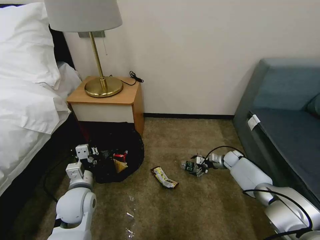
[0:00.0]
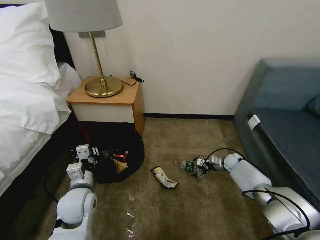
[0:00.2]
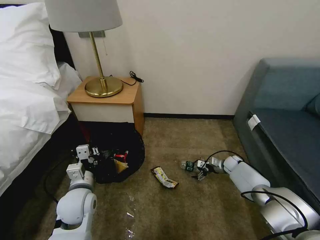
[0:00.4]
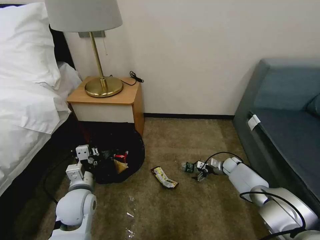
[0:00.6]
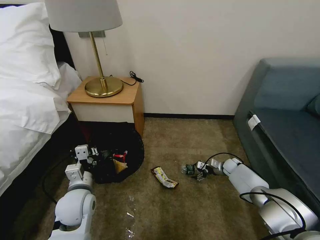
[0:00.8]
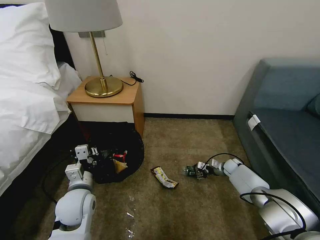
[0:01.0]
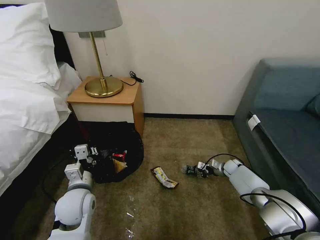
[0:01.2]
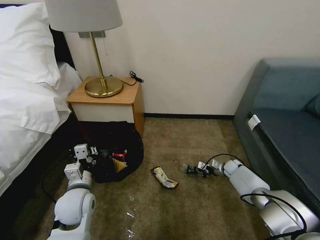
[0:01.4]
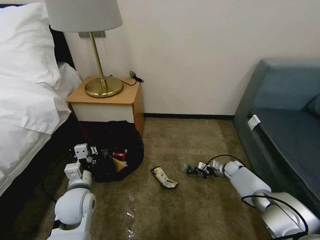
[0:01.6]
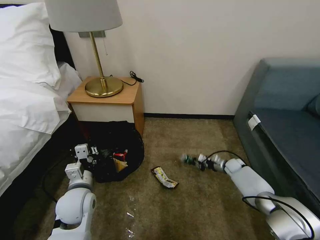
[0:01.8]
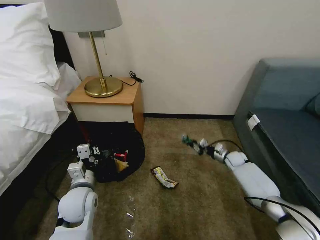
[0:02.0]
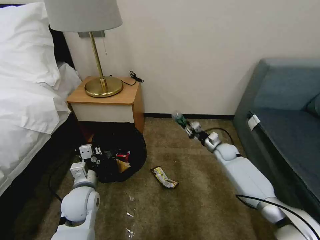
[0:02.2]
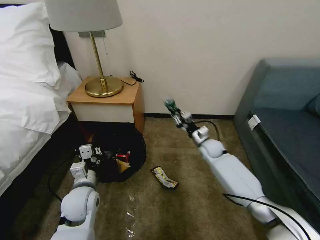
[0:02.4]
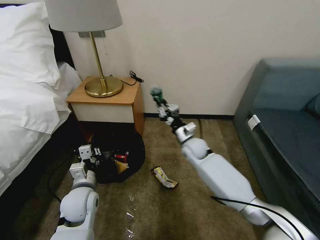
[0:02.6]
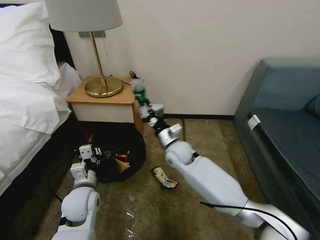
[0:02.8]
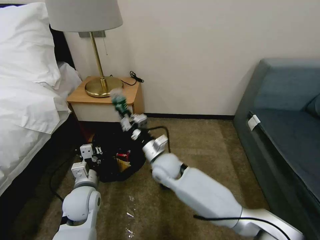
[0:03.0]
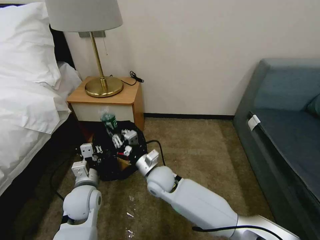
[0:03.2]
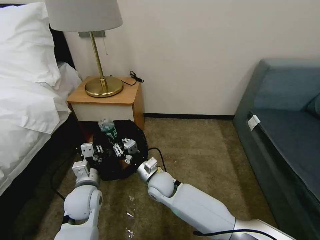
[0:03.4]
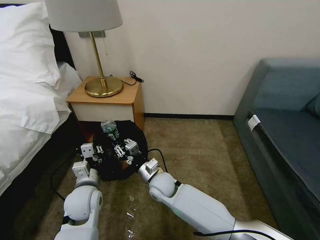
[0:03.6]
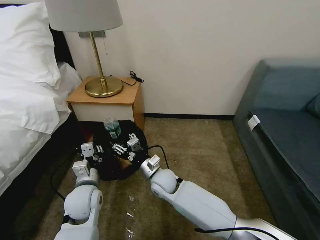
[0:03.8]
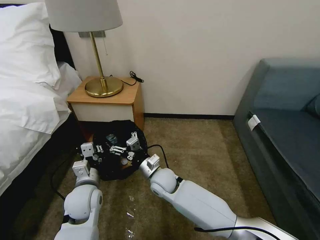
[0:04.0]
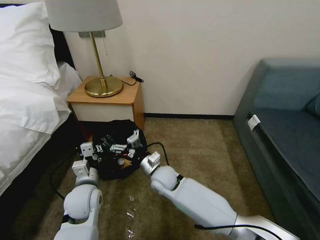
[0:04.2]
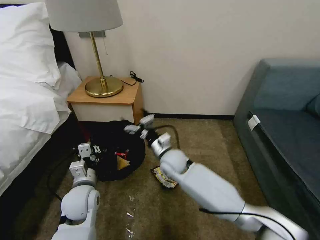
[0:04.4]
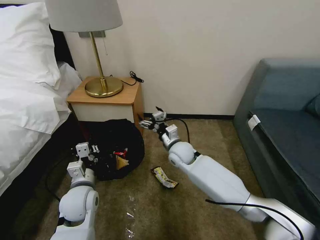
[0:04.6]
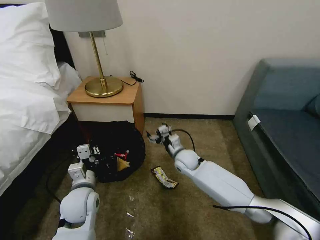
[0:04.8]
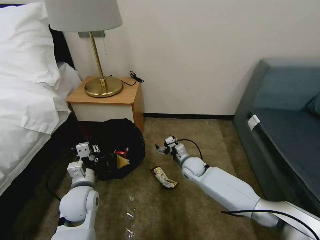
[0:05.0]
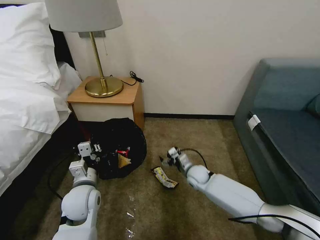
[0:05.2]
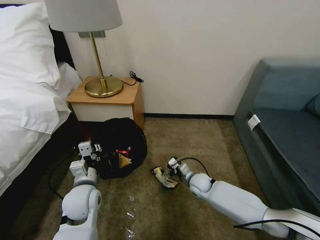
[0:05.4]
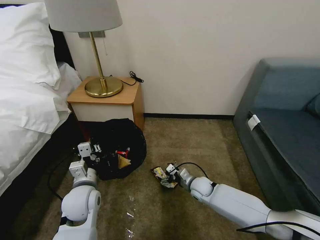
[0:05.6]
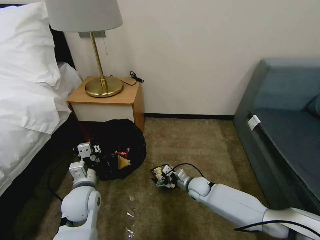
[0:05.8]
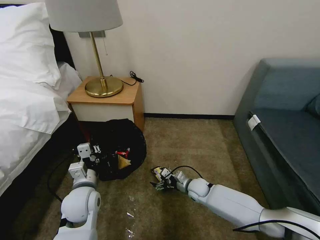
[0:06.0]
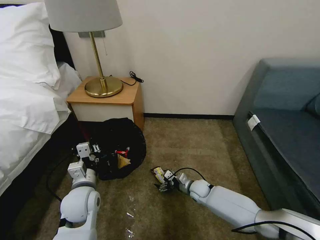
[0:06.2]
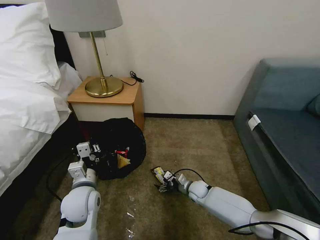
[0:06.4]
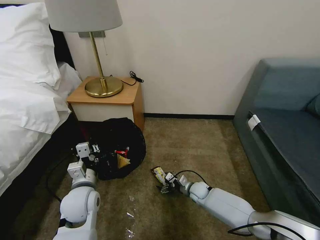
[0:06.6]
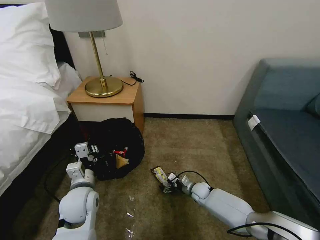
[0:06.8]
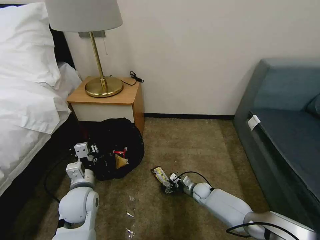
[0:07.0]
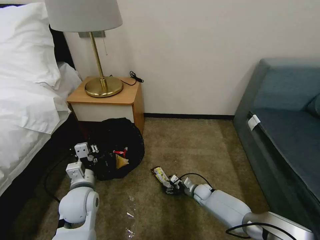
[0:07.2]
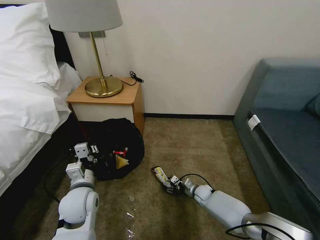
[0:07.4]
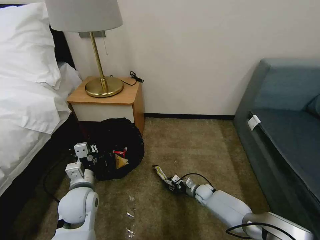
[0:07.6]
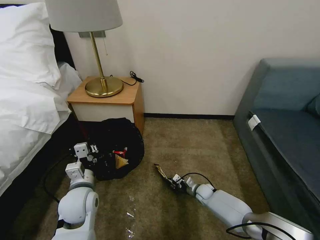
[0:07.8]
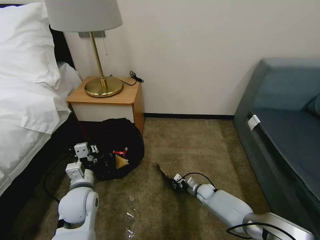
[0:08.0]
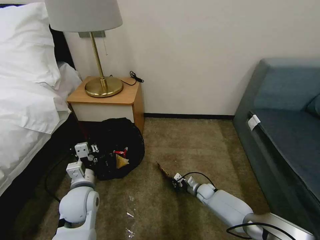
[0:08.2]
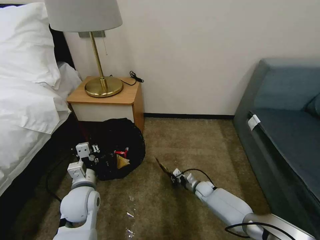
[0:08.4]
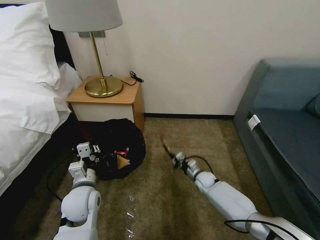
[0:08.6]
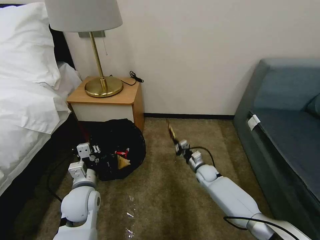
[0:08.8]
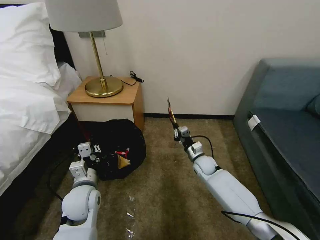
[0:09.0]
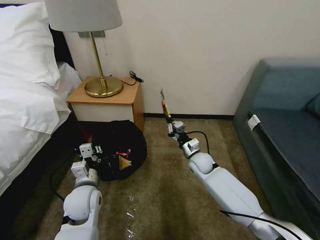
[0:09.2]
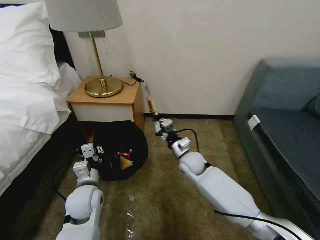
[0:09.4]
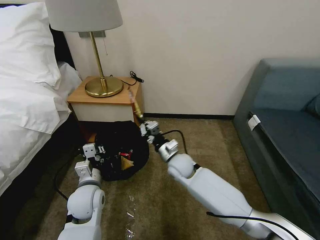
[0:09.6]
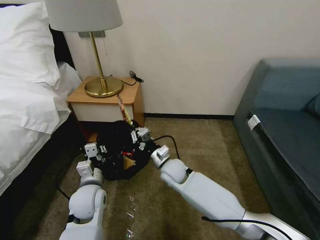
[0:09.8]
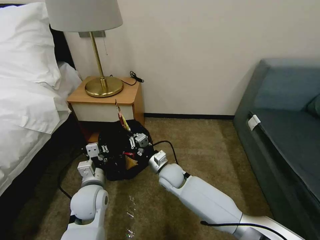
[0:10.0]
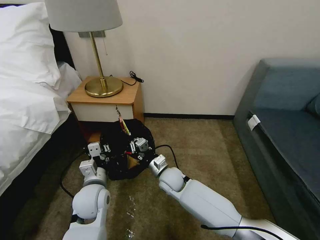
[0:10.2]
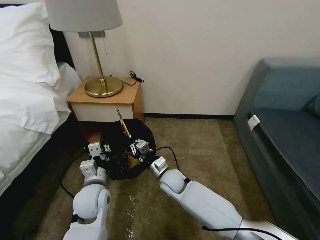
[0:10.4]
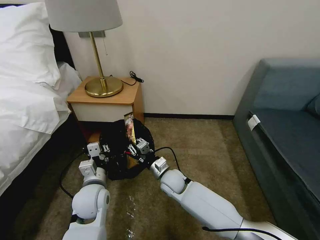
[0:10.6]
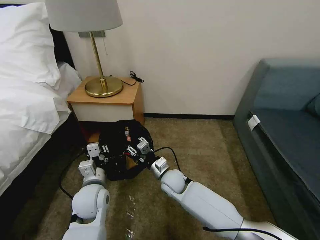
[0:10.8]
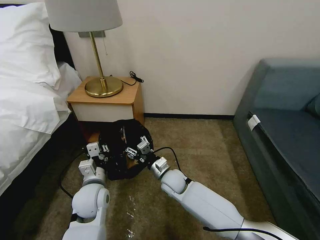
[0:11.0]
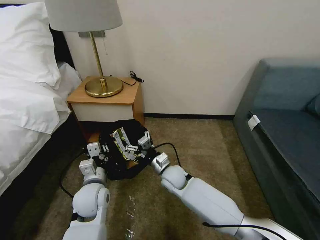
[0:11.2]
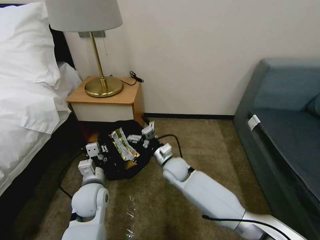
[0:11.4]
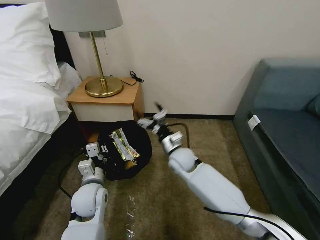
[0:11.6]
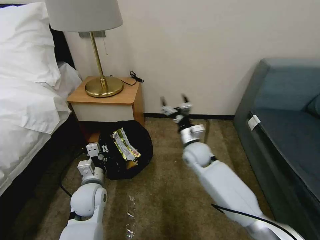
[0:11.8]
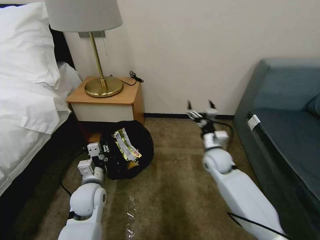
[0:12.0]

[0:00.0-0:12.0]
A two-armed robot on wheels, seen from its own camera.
Task of the whole recording: Pick up the trash bin, then pick up the garbage on the floor and place it into the trash bin.
0:00.0 to 0:01.6: The right gripper changes place by some 5 cm, and closes.
0:01.6 to 0:03.0: The right gripper is displaced to the left and upward by roughly 40 cm.
0:03.0 to 0:04.4: The right gripper goes backward and returns, roughly 10 cm each way, and opens up.
0:04.4 to 0:06.0: The right gripper goes about 25 cm downward and to the right.
0:06.0 to 0:07.6: The right gripper is displaced downward and to the right by about 10 cm, and closes.
0:07.6 to 0:09.0: The right gripper heads upward, covering some 15 cm, and closes up.
0:09.0 to 0:10.4: The right gripper travels to the left and backward by about 15 cm.
0:10.4 to 0:12.0: The right gripper is displaced to the right and upward by roughly 20 cm, and opens up.

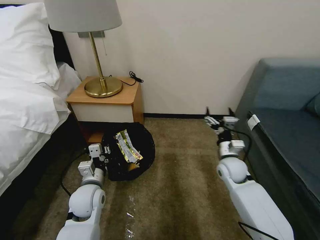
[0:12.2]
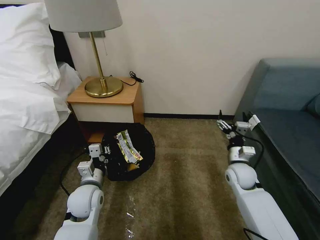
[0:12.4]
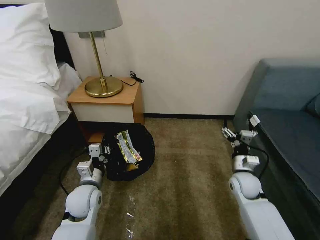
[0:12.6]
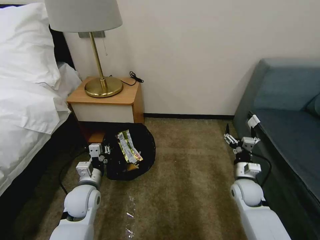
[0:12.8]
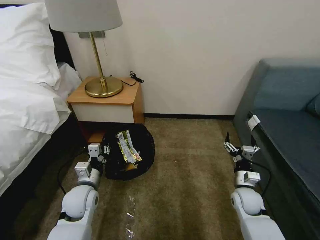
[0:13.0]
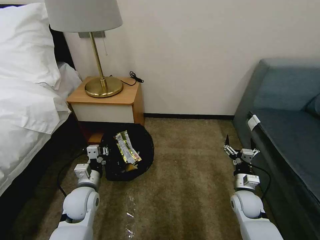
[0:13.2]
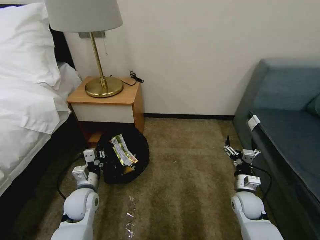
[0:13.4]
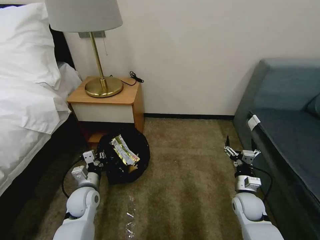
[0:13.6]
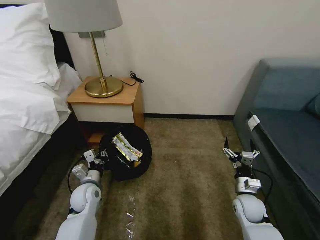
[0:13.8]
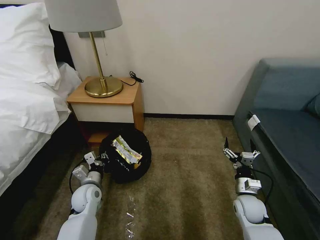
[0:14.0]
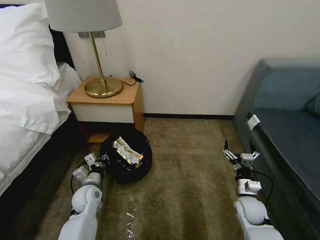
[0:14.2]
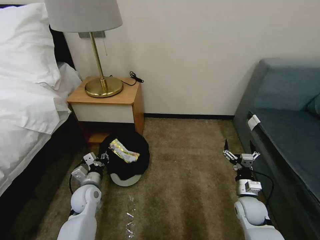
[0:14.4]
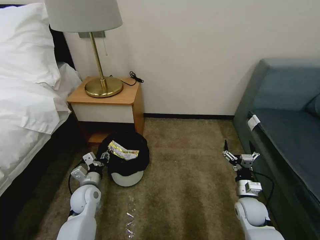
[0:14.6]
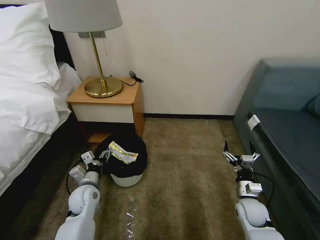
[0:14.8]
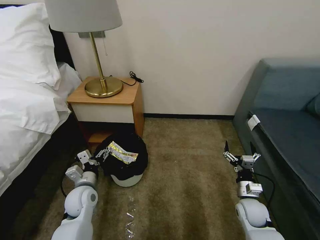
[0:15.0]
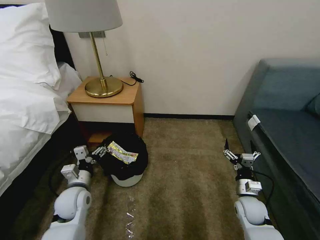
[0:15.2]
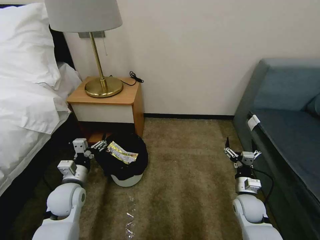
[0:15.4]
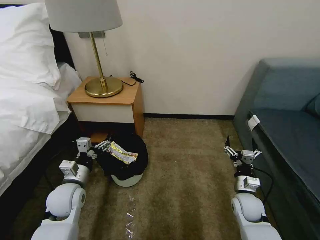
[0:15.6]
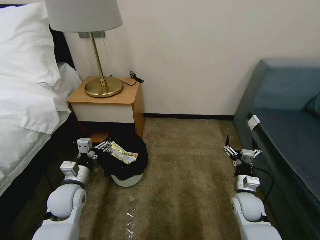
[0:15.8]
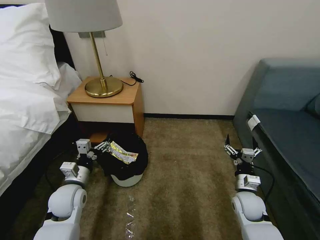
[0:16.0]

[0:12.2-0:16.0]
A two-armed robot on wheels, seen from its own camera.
Task of the whole recording: Pick up the trash bin, then pick up the garbage on the floor and place it into the trash bin.
0:12.2 to 0:13.4: The right gripper shifts about 15 cm backward and downward.
0:13.4 to 0:14.8: The left gripper opens.
0:14.8 to 0:16.0: The left gripper goes some 5 cm upward.

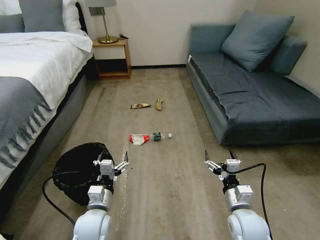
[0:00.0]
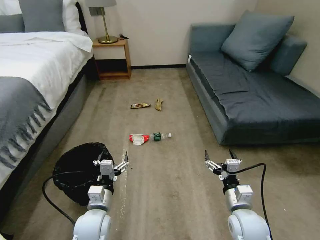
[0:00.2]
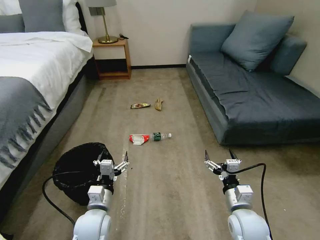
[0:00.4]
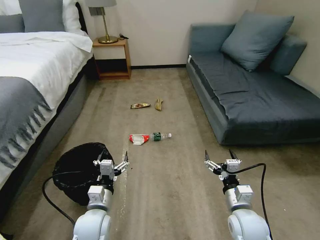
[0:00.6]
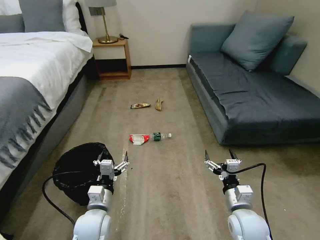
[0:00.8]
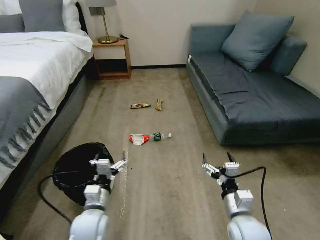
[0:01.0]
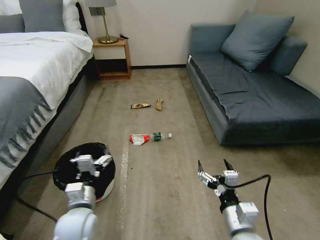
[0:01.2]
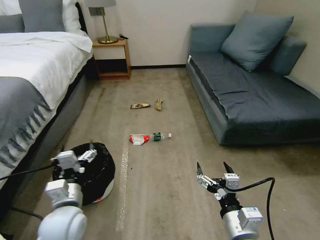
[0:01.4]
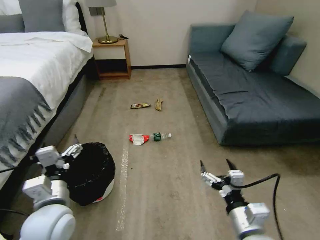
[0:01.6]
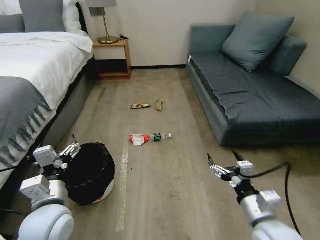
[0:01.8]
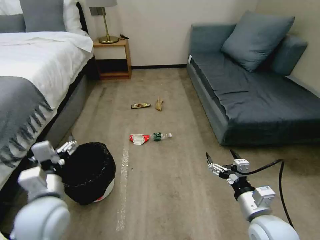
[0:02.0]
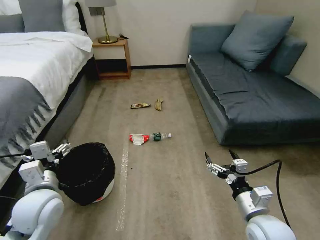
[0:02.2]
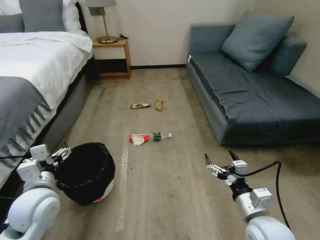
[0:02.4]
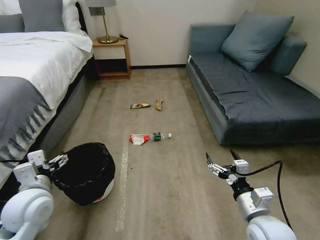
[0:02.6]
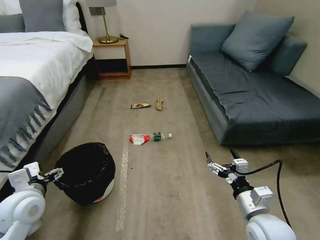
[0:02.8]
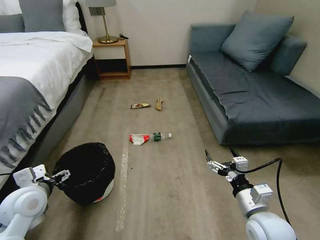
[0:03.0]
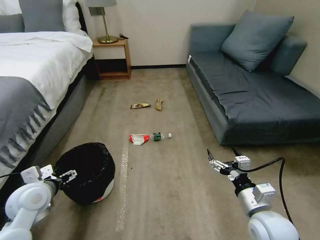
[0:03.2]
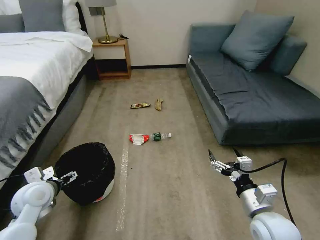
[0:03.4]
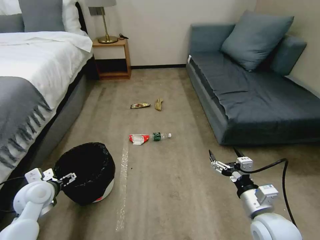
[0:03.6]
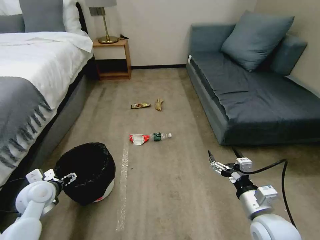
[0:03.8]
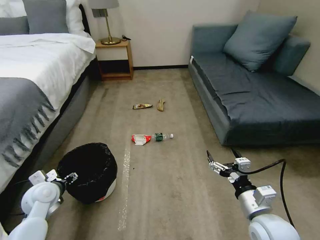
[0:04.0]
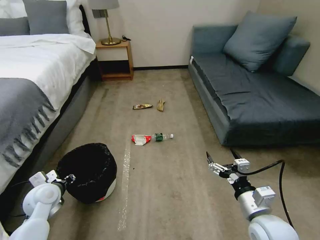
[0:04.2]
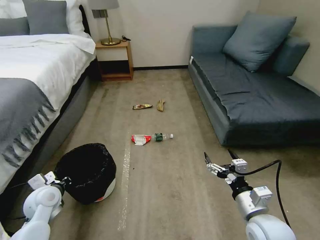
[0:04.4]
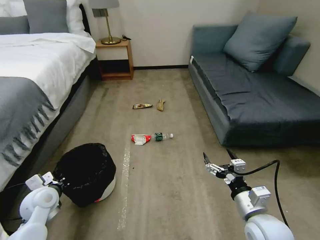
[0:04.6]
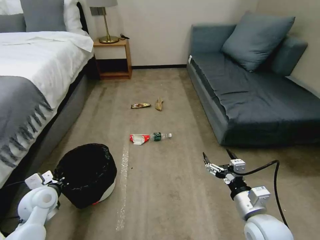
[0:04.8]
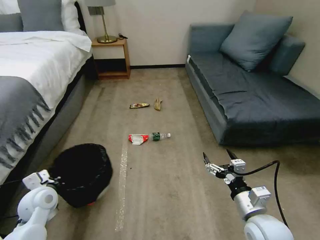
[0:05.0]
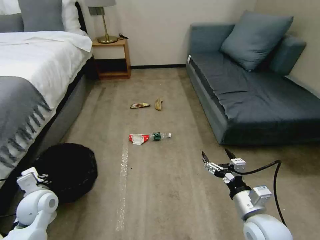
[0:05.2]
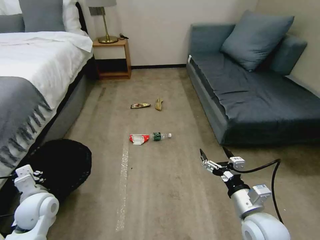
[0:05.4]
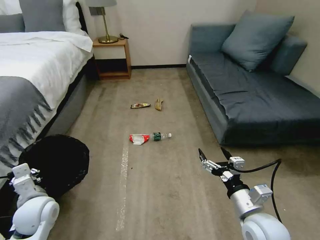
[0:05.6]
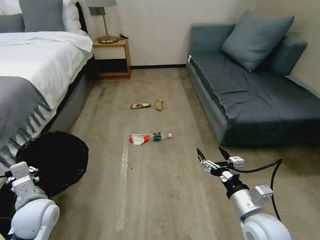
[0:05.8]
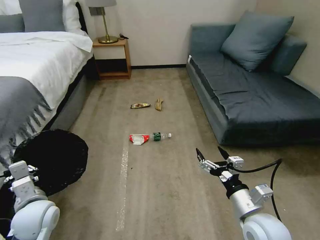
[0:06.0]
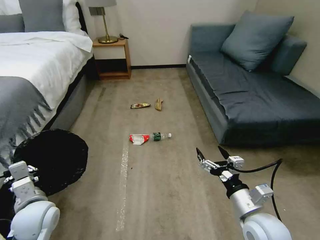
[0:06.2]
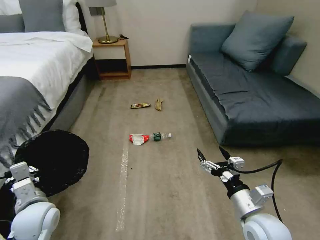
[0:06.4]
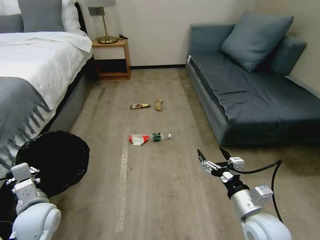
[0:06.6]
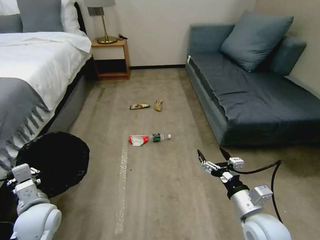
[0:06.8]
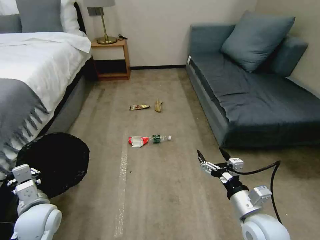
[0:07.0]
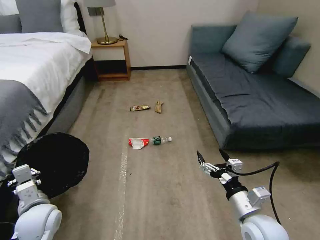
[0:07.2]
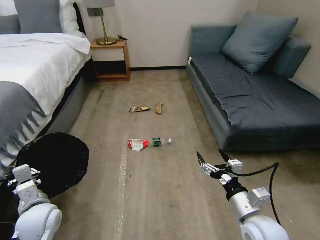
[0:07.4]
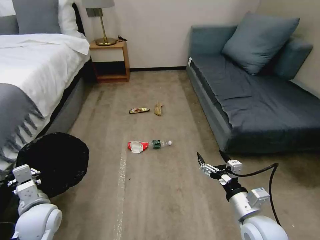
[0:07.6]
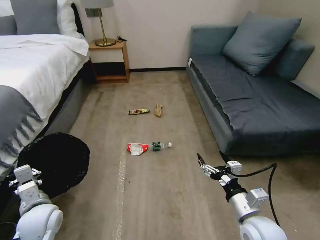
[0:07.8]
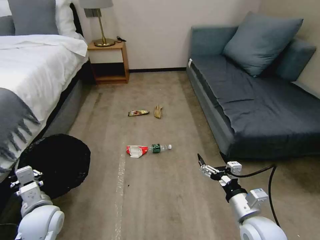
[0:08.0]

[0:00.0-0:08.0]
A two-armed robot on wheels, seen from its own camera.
Task of the whole recording: Pick up the trash bin, then pick up the garbage on the floor and place it into the trash bin.
0:01.6 to 0:03.2: The right gripper moves to the right and forward, roughly 10 cm, while the left gripper goes approximately 15 cm to the left and forward.
0:03.2 to 0:04.8: The left gripper heads downward, covering some 5 cm, and closes its fingers.
0:04.8 to 0:06.4: The left gripper moves backward, approximately 5 cm.
